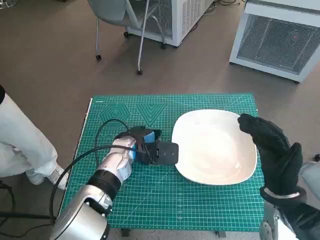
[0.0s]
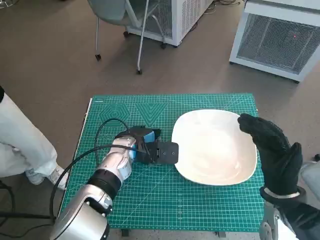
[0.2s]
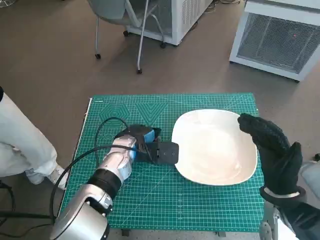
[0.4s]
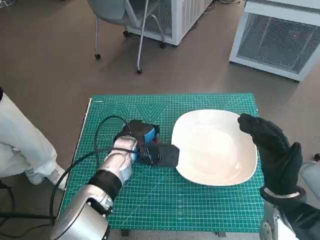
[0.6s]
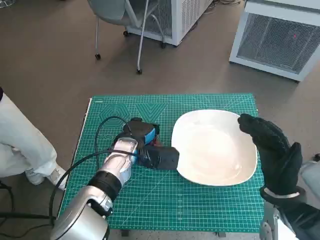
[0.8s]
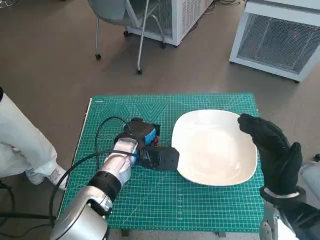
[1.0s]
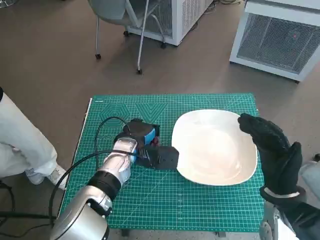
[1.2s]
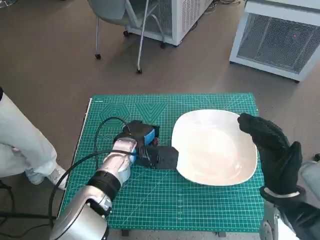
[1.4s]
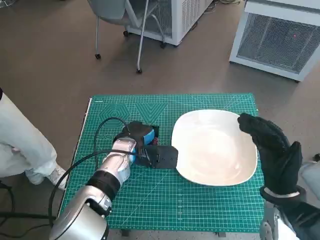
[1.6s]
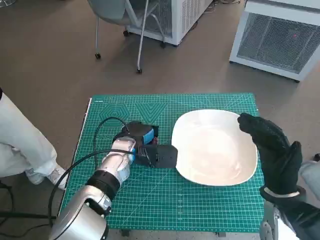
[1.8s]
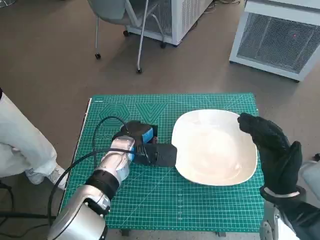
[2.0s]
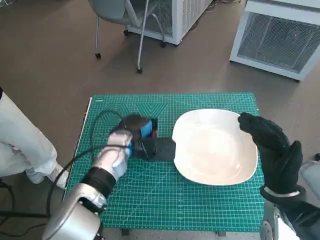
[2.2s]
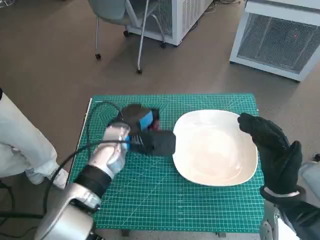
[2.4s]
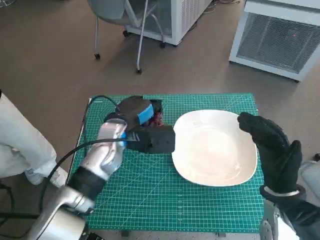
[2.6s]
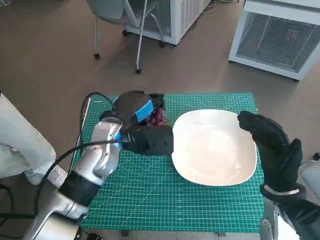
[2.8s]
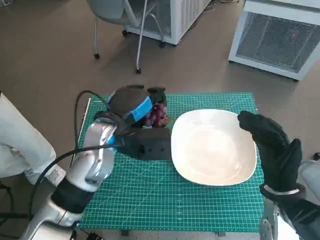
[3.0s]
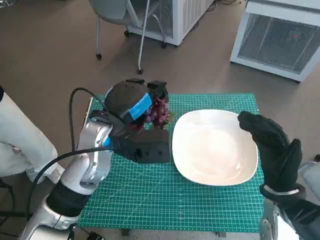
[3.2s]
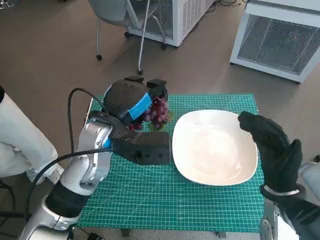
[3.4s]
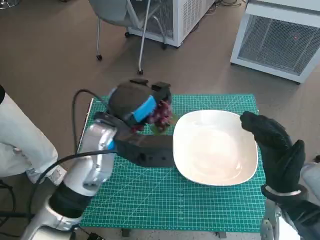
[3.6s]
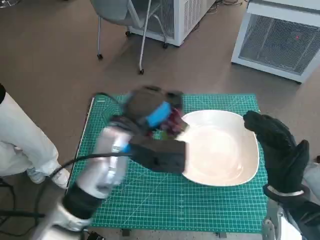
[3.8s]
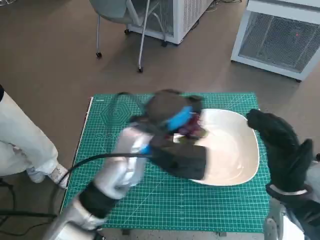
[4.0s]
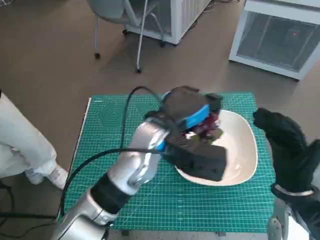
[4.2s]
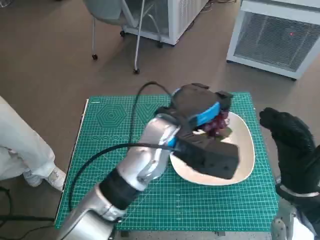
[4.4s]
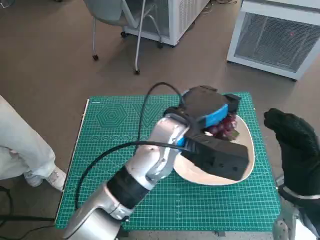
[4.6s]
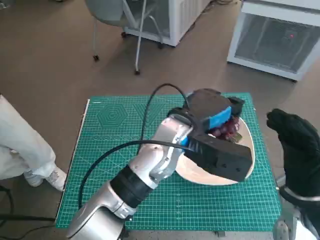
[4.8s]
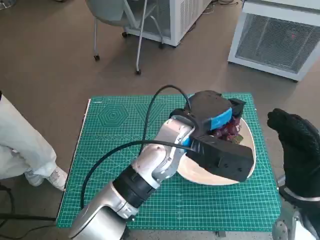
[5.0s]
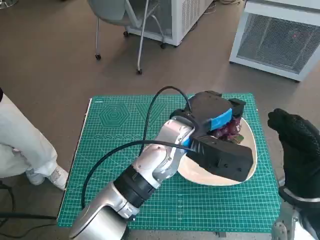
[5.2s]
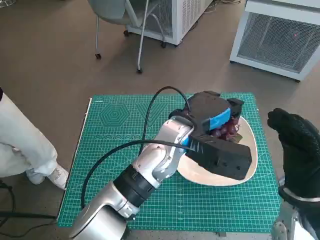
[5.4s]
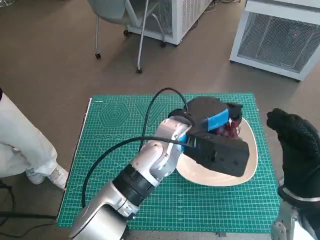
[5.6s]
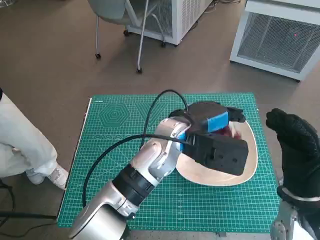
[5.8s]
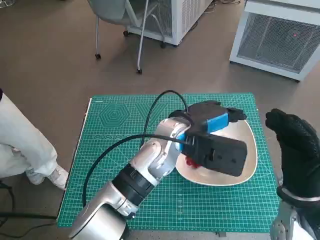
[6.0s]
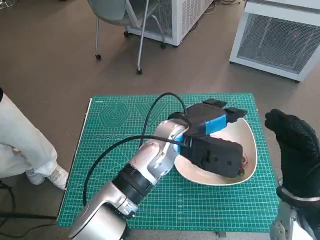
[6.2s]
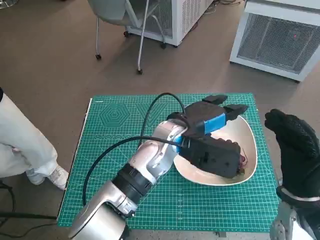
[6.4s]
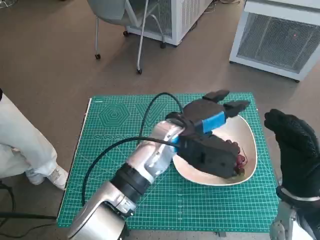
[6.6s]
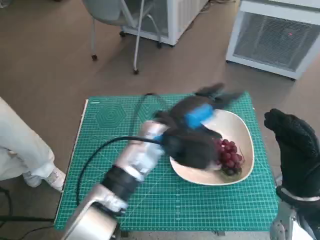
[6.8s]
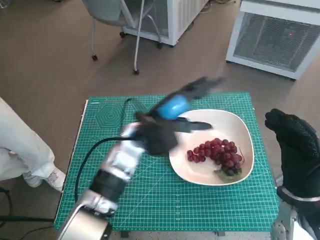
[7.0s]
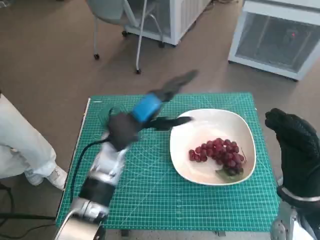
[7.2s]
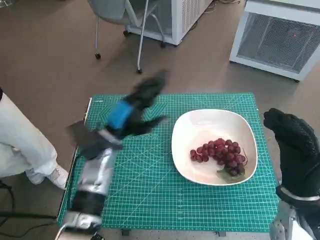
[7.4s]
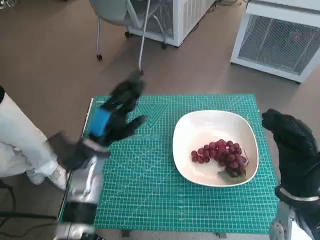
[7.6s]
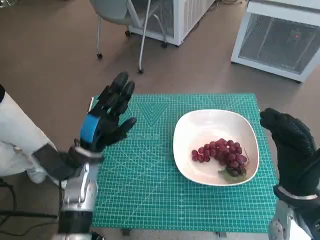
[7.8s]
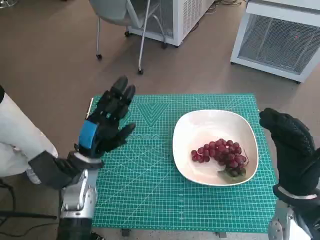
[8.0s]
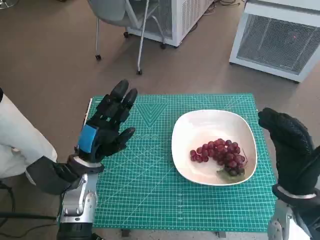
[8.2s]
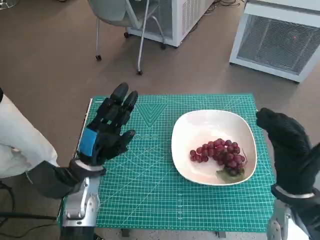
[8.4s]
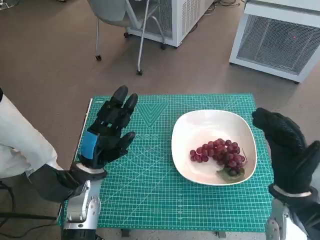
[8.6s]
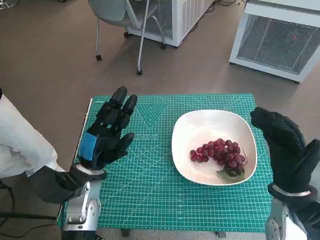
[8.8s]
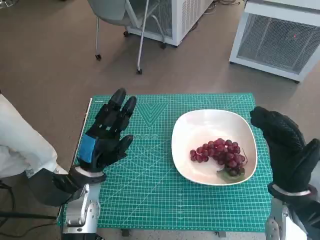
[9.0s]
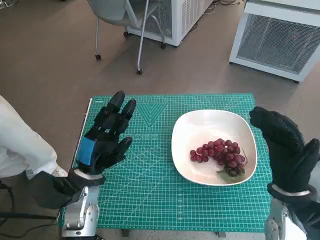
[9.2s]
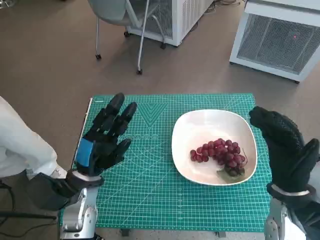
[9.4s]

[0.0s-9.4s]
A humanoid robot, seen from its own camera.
Task of the whole recording: Pick up the grapes and put them on the plate.
Step, 1.2s to 6.0s: Place the grapes in the plate with left hand.
0.0s to 1.6s: The hands move only a little.
1.6s to 3.2s: The left hand travels upward by about 10 cm.
3.2s to 4.8s: The left hand travels to the right by some 10 cm.
4.8s to 6.2s: There are only small adjustments of the hands.
6.2s to 7.8s: The left hand goes approximately 20 cm to the left.
7.8s to 9.4s: There are only small adjustments of the hands.

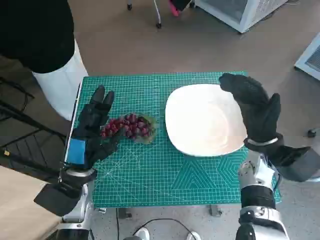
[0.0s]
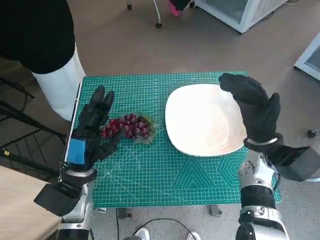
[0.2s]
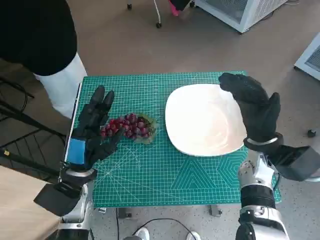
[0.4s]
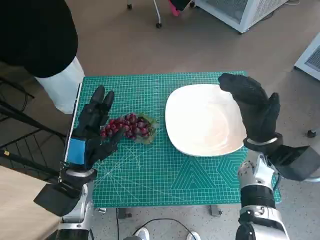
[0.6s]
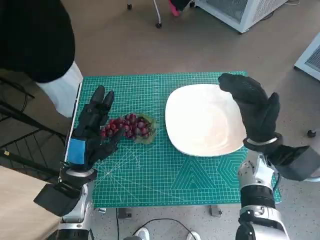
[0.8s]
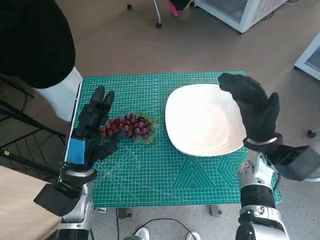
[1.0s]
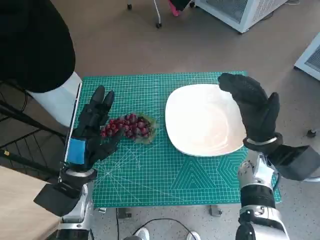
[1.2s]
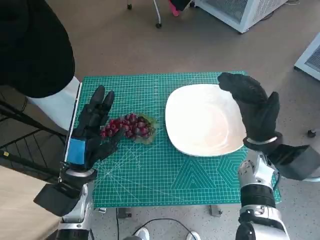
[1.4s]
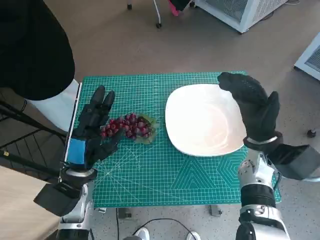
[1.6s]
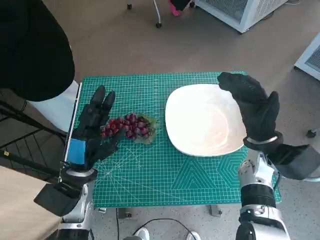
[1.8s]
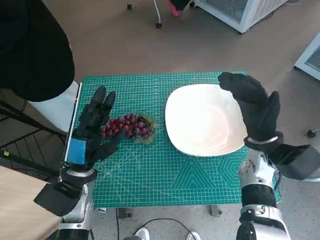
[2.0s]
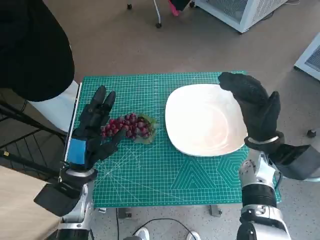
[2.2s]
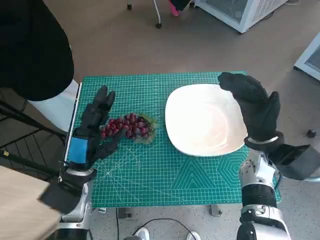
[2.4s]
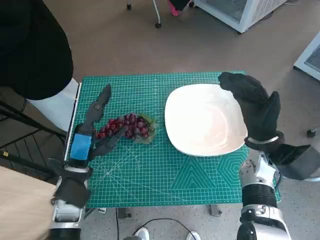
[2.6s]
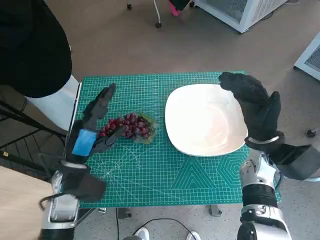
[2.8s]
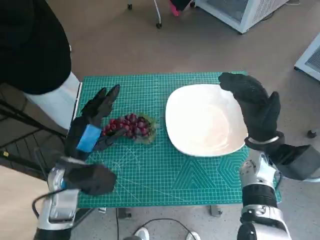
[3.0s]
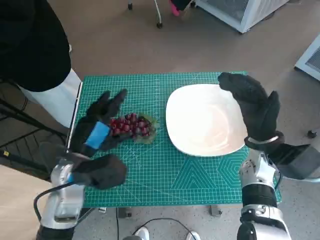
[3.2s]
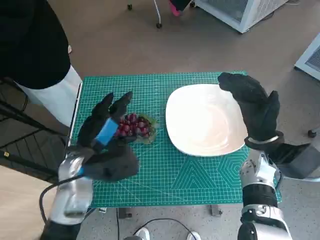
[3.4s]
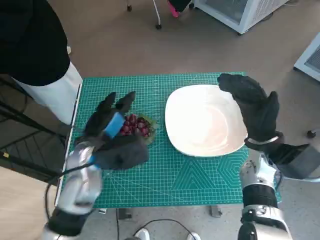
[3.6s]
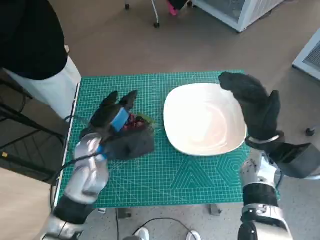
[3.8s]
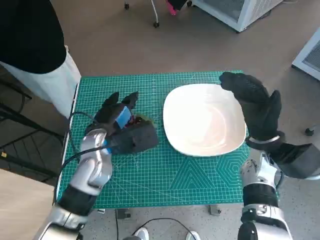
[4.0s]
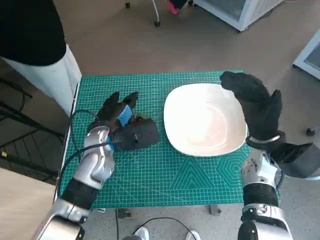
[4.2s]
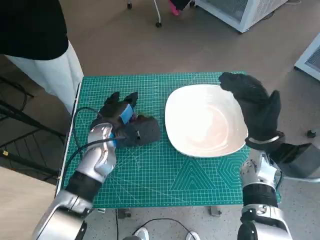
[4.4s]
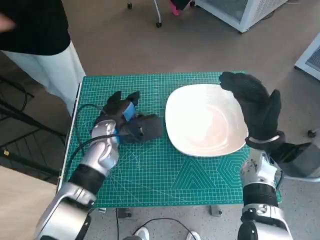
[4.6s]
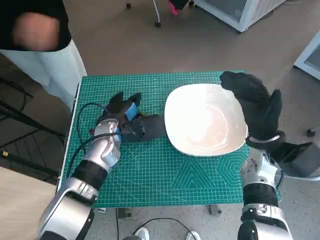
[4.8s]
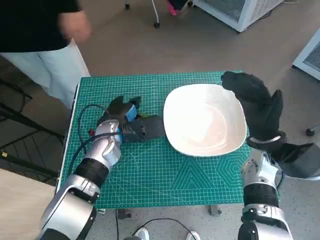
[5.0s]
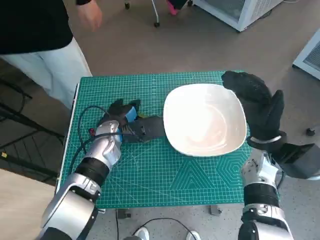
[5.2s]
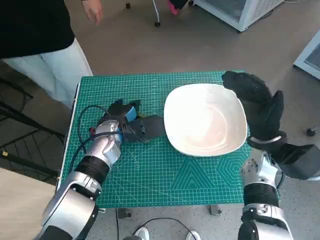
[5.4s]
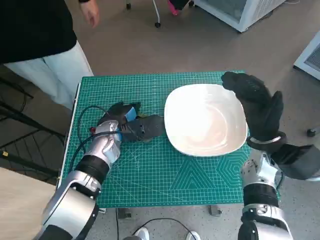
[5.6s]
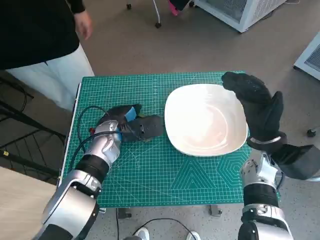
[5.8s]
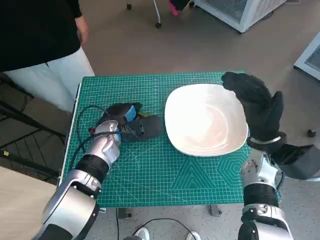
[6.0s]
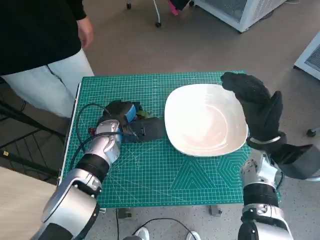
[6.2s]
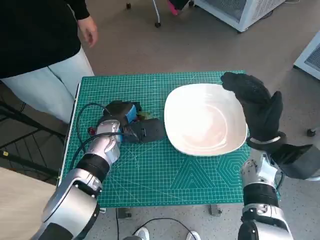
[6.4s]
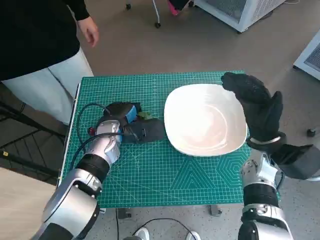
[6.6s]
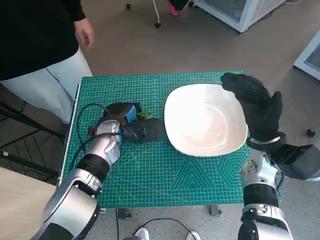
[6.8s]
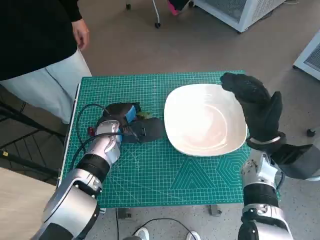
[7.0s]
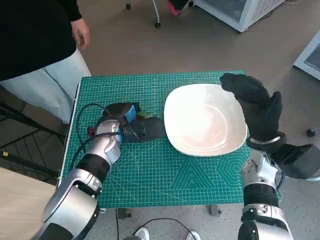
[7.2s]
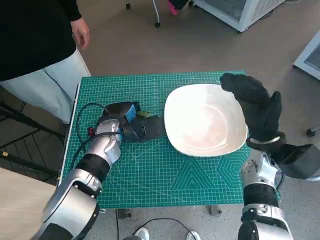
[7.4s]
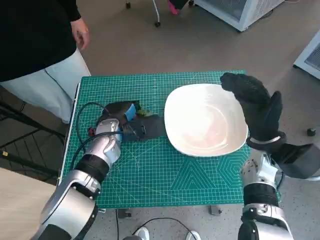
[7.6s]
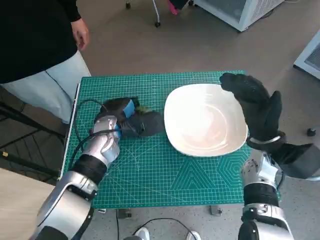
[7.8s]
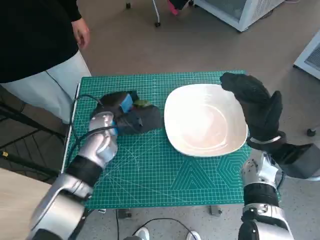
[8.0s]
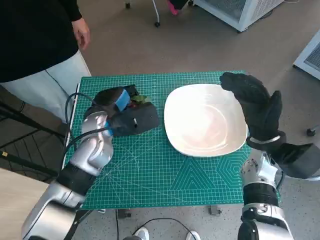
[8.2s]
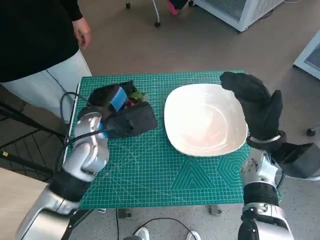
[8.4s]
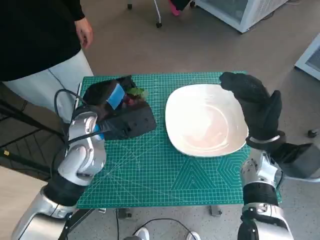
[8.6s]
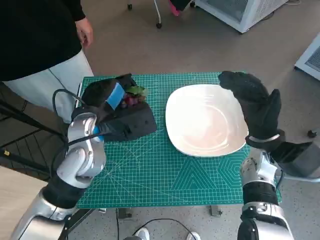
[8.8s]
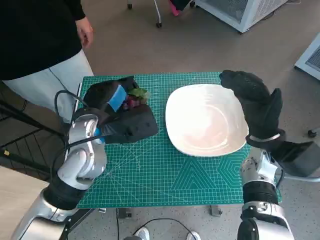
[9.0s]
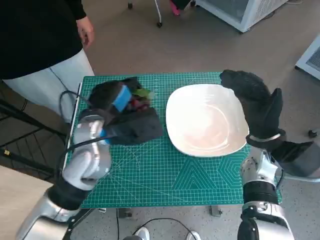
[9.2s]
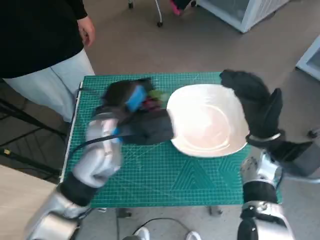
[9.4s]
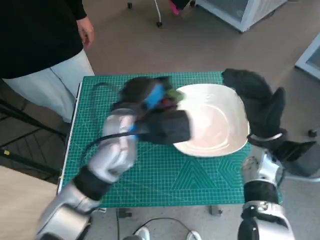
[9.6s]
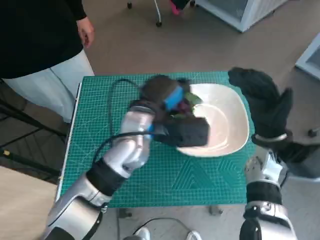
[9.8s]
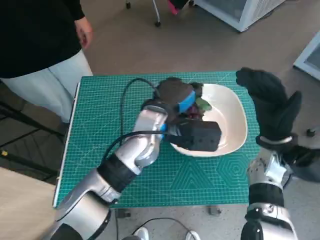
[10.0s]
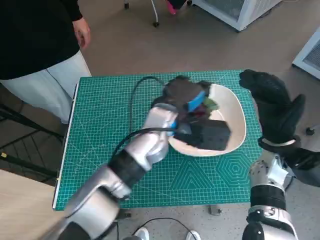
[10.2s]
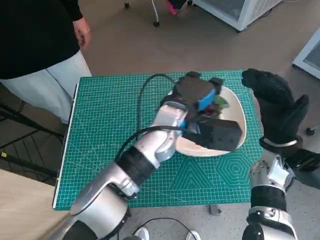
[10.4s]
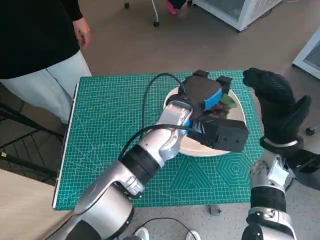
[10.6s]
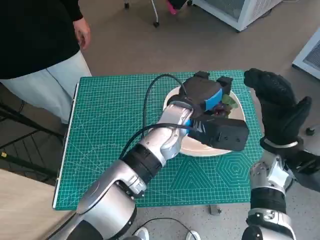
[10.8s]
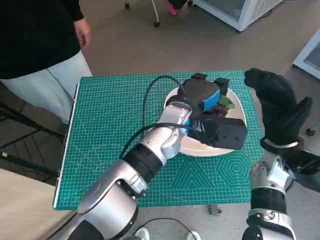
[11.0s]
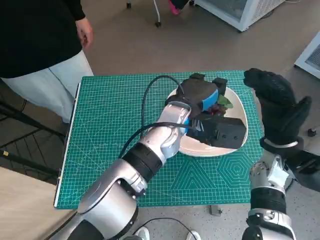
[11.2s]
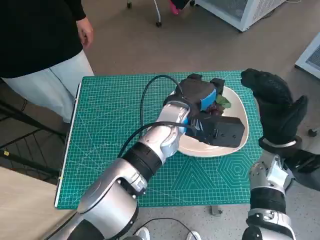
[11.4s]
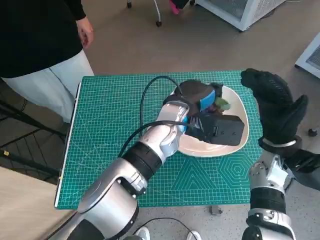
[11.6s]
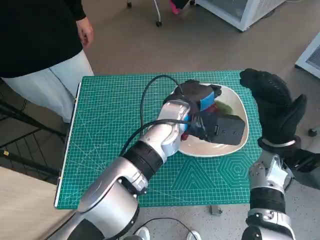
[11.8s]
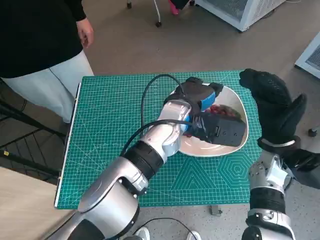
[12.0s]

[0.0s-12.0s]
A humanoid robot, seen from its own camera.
Task of the whole recording: Pick up the grapes and put them on the plate.
Step, 0.0s to 6.8s: Grasp the grapes with left hand.
3.0s to 4.4s: The left hand moves forward and to the right, some 10 cm.
4.4s to 7.6s: The hands stay close to where they were, moving slightly.
7.6s to 9.0s: The left hand shifts roughly 10 cm upward and backward.
9.0s to 10.4s: The left hand is displaced to the right by approximately 15 cm.
10.4s to 12.0s: The hands make only small movements.

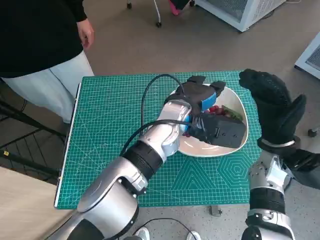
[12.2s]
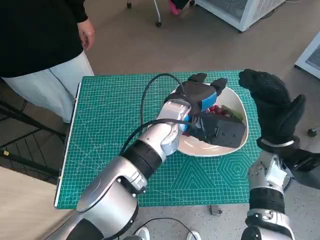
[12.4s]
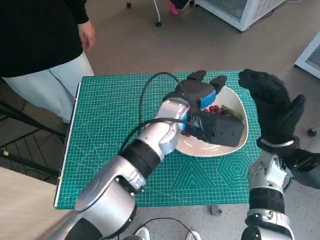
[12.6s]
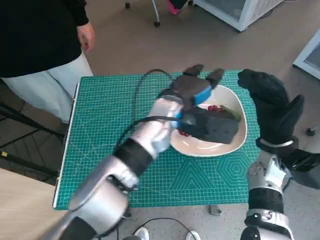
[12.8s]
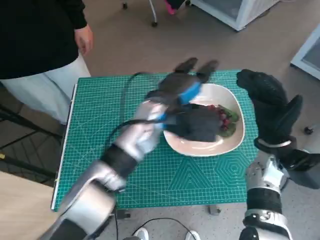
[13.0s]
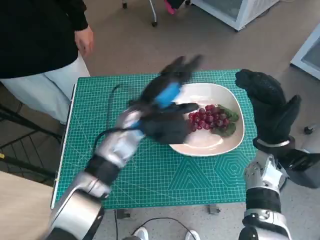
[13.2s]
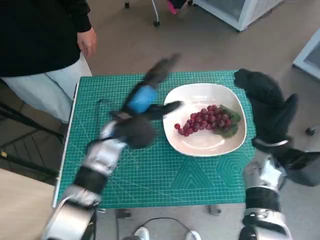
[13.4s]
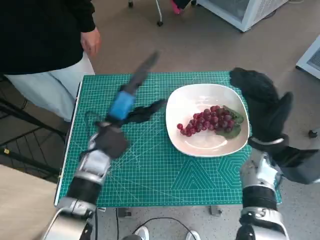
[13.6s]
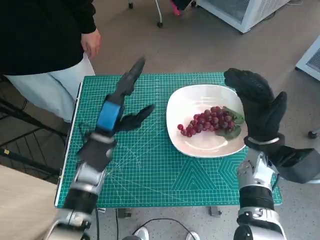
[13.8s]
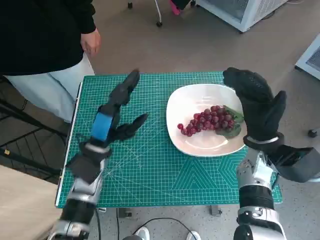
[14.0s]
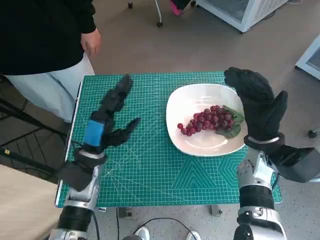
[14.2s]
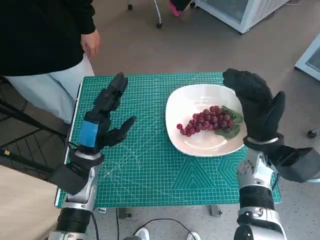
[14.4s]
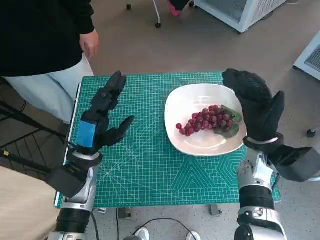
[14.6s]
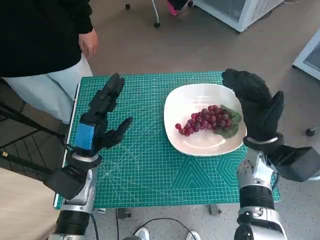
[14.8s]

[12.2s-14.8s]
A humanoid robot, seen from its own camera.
Task of the whole recording: Pick up the grapes and put them on the plate.
12.2s to 13.4s: The left hand goes approximately 10 cm to the left.
13.4s to 14.8s: The left hand heads to the left and backward, covering some 10 cm.
